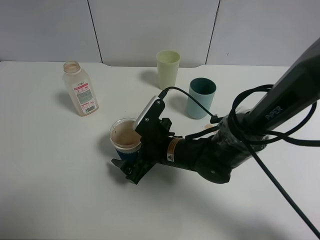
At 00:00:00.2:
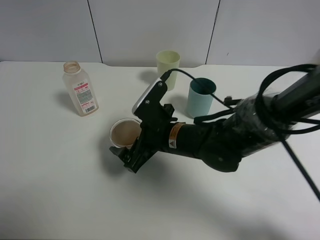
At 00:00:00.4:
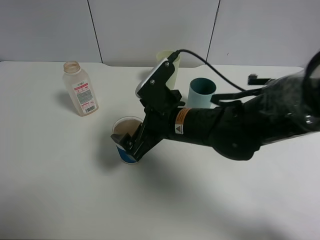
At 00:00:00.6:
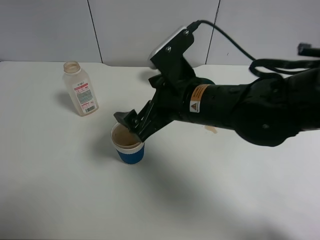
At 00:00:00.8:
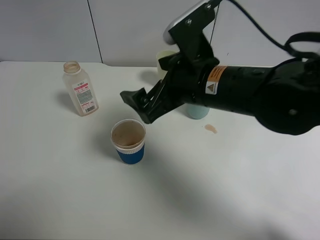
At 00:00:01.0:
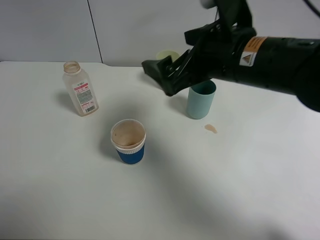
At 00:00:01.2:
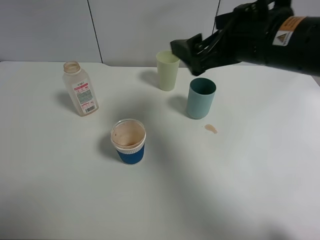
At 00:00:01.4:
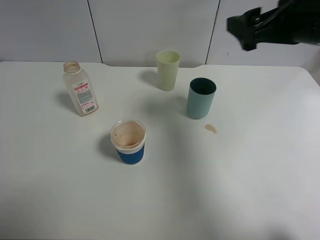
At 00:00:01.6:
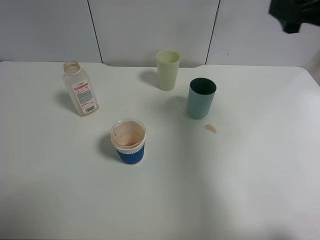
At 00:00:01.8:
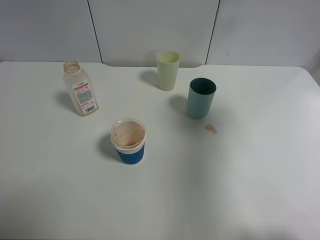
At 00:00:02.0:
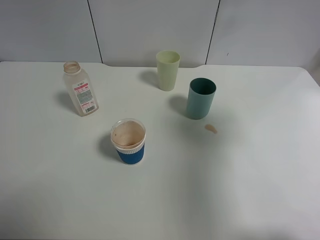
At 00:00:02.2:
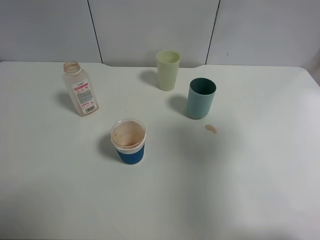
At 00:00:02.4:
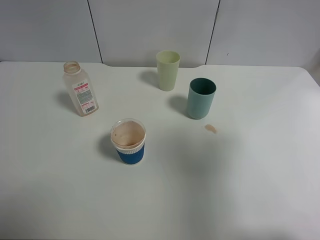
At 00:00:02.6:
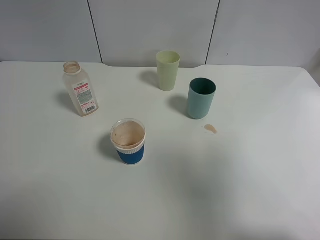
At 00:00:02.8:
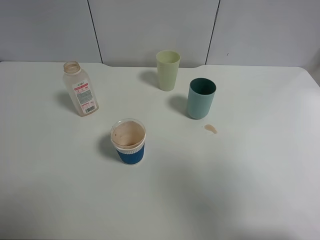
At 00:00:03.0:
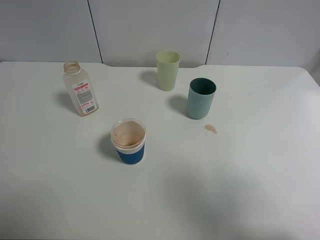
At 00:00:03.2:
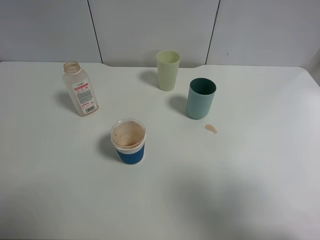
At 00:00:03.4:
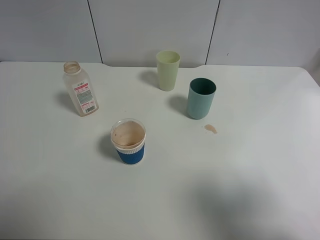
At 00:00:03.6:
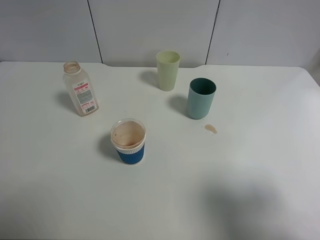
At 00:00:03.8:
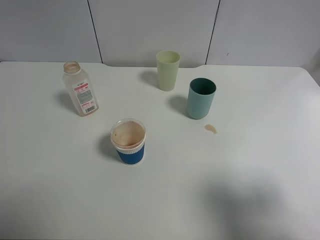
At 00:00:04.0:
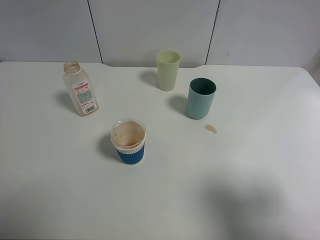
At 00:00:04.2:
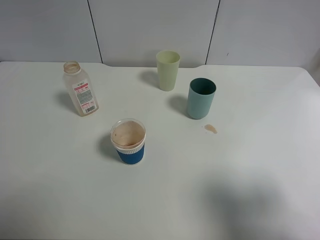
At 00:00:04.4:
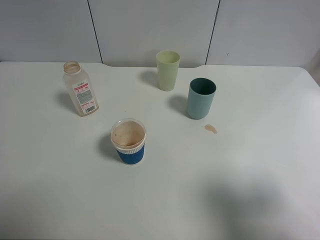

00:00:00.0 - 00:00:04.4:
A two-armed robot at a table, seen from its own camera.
Task of the whole recording: use a clamp to hold the bottle of the drink, pour the beverage into a random cup, then clamp the cup containing the drink and pour the drink into another random cup.
00:00:00.0 - 00:00:01.4: The right gripper travels upward and to the right by about 30 cm.
00:00:01.4 - 00:00:03.0: The right gripper is displaced backward by some 25 cm.
00:00:03.0 - 00:00:04.4: The right gripper is displaced downward by roughly 5 cm.
